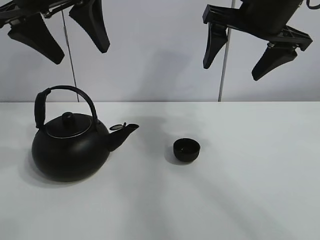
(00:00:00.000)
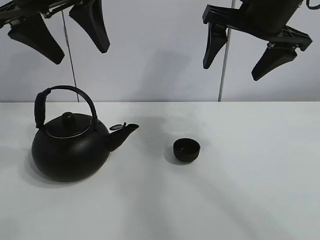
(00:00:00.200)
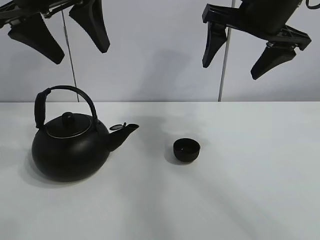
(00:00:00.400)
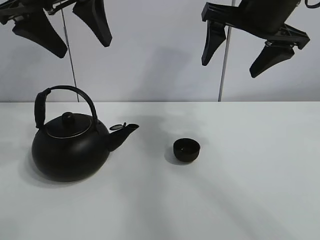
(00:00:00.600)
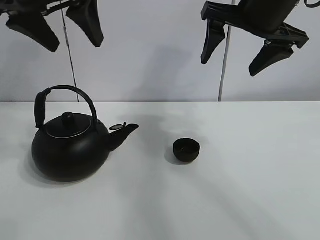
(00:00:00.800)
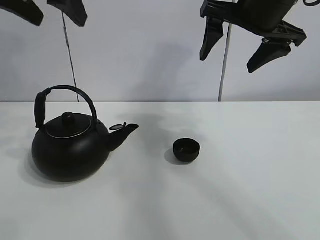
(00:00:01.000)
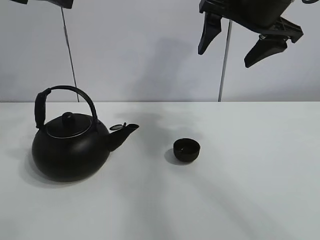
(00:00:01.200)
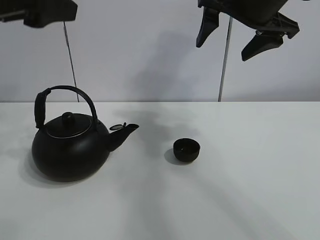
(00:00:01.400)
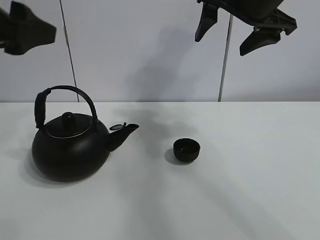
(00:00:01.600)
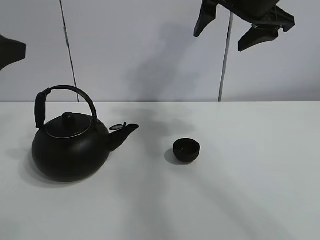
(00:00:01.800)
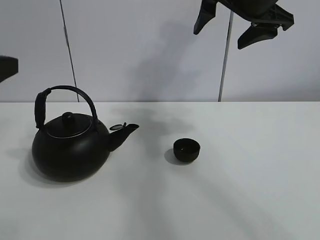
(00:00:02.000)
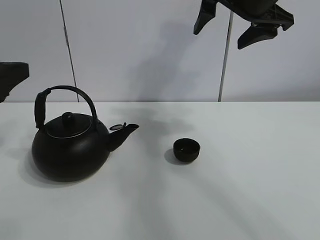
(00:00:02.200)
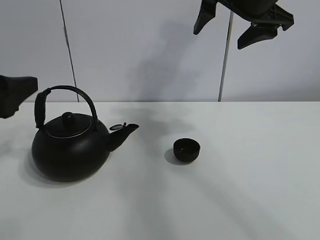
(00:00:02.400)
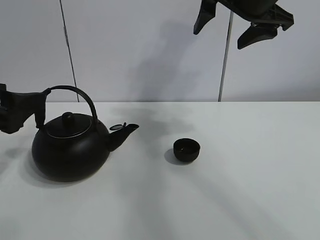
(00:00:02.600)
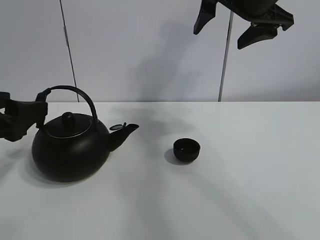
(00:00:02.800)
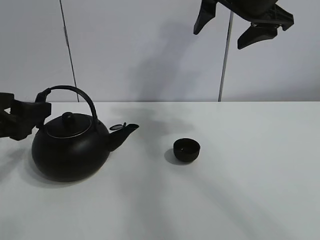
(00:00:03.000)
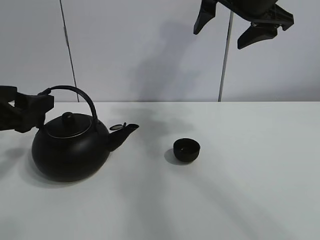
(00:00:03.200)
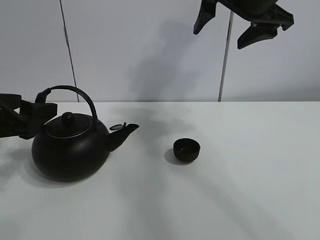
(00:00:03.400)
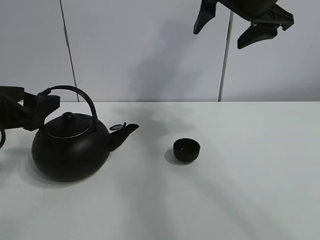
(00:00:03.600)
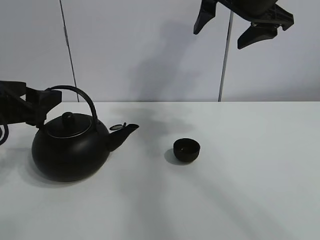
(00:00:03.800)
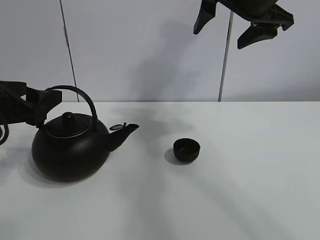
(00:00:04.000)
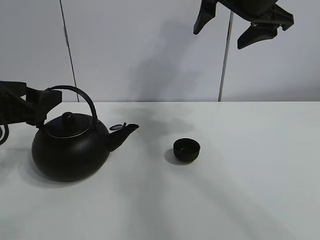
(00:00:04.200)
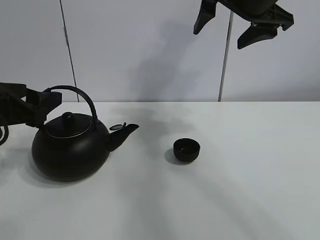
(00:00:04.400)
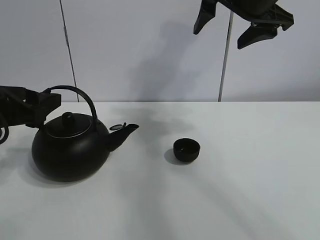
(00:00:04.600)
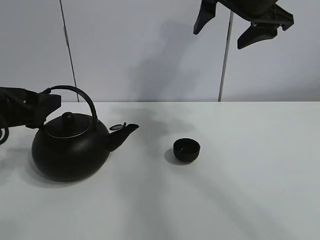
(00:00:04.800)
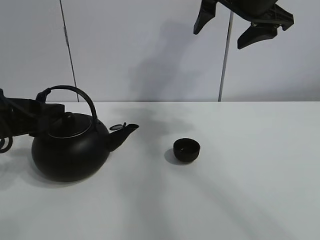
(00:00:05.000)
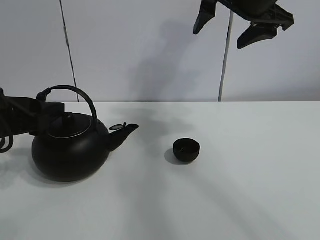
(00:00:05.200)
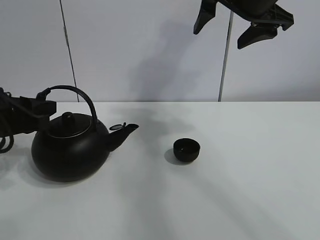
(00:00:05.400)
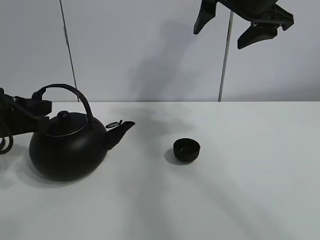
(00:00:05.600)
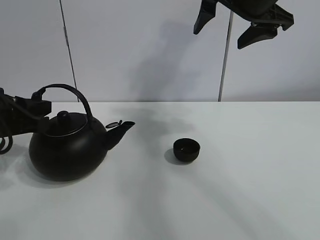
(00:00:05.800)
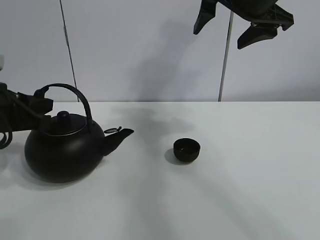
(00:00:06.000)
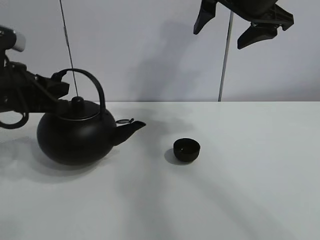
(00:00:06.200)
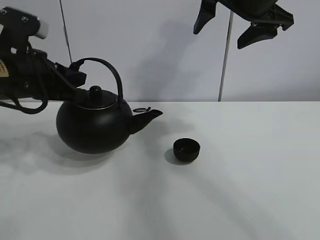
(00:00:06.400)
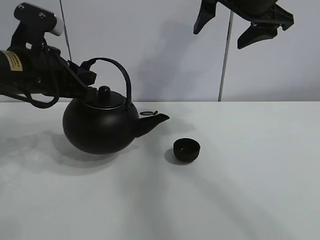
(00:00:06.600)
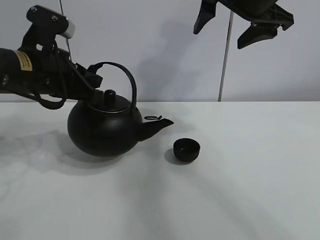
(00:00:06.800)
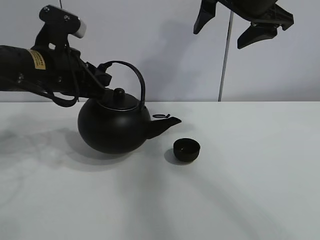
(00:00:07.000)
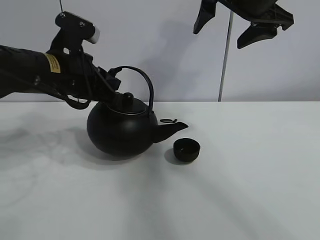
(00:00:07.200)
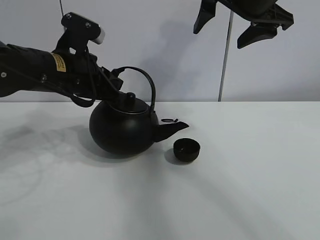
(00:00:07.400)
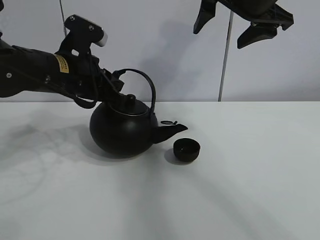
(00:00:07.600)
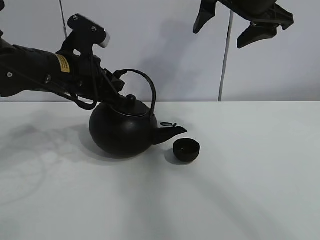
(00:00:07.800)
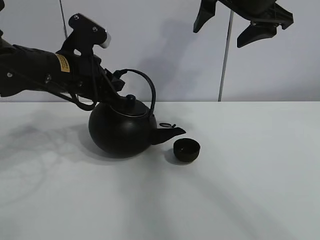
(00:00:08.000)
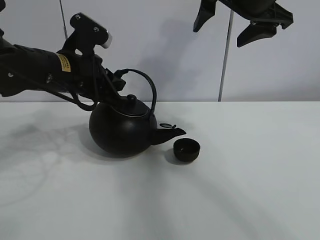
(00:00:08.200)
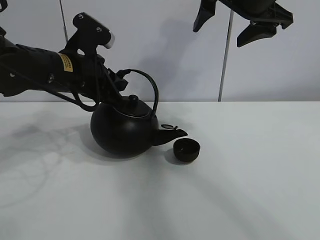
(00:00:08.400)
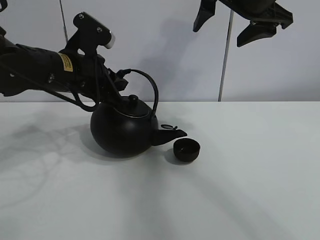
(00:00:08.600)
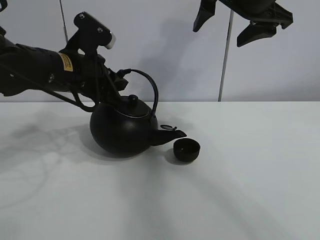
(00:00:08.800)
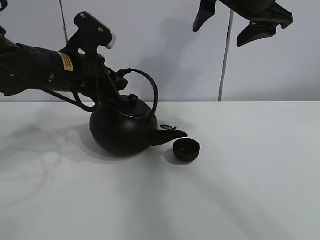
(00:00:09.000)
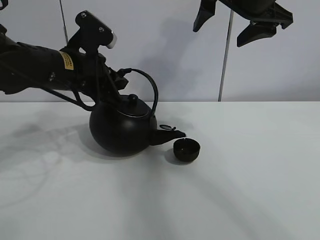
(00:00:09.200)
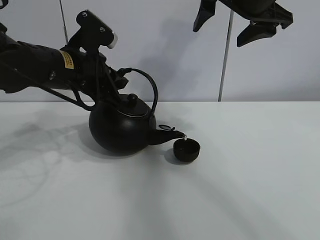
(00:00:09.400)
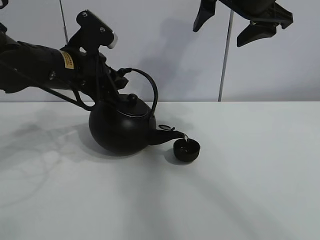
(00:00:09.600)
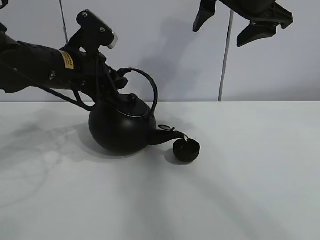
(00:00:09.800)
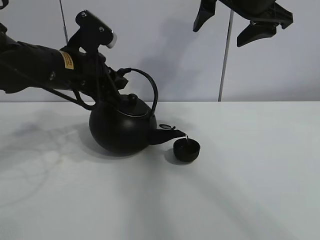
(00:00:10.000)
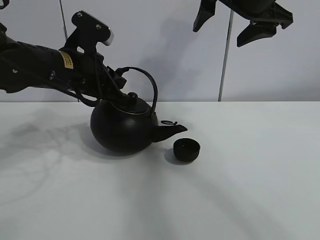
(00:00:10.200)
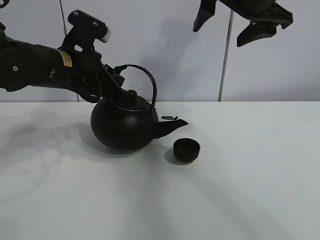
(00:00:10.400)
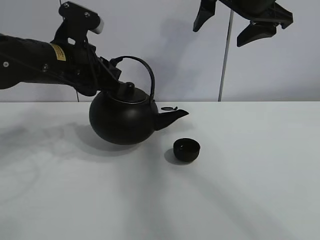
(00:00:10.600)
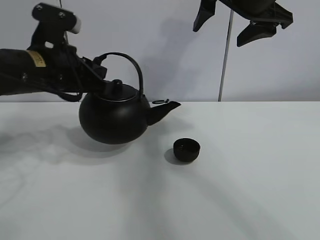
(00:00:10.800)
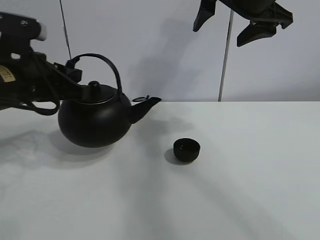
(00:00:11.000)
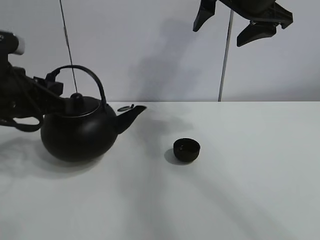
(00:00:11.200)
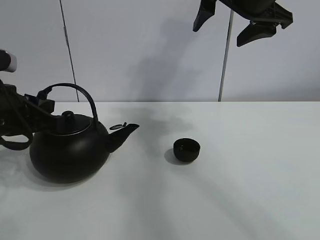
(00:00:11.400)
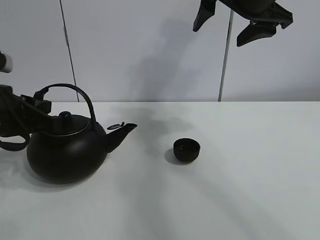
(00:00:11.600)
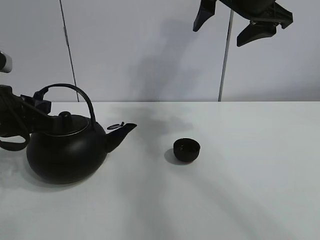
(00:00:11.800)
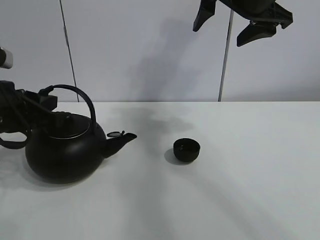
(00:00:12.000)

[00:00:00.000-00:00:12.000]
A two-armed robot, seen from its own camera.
Task of the whole recording: pour tea into the teacup.
Step, 00:00:00.000 to 00:00:05.800: Pick up the teapot with the left gripper.
Step, 00:00:06.000 to 00:00:10.200: Pour tea into the teacup with the left gripper.
00:00:00.000 to 00:00:01.600: The left gripper travels to the left and backward by about 10 cm.
00:00:01.600 to 00:00:03.000: The left gripper heads downward, covering some 15 cm.
00:00:03.000 to 00:00:04.400: There are only small adjustments of the grippers.
00:00:04.400 to 00:00:06.000: The left gripper closes.
00:00:06.000 to 00:00:07.600: The left gripper moves to the right and forward, some 15 cm.
00:00:07.600 to 00:00:10.400: The grippers move only a little.
00:00:10.400 to 00:00:12.000: The left gripper moves backward and to the left, approximately 15 cm.

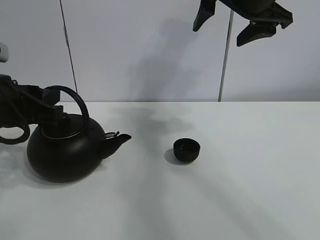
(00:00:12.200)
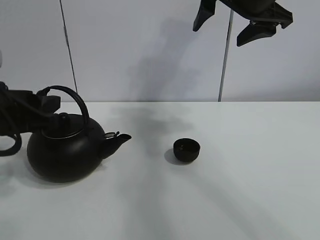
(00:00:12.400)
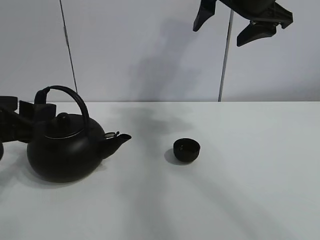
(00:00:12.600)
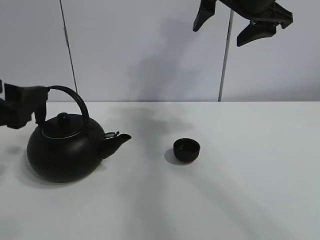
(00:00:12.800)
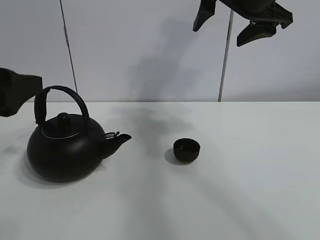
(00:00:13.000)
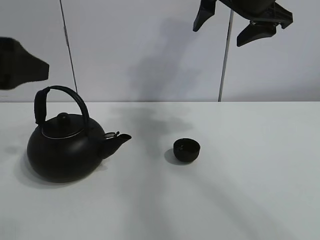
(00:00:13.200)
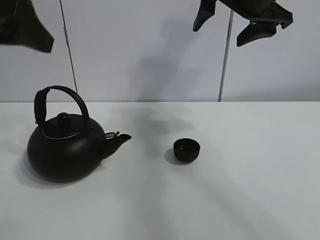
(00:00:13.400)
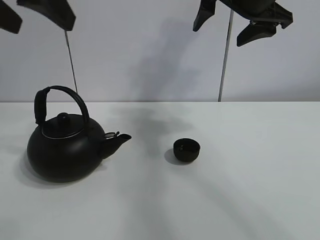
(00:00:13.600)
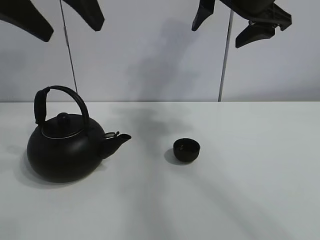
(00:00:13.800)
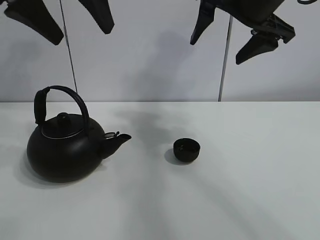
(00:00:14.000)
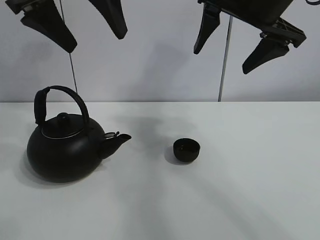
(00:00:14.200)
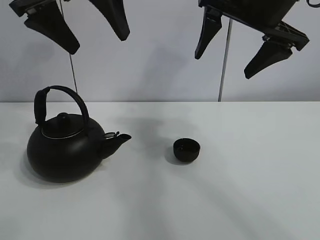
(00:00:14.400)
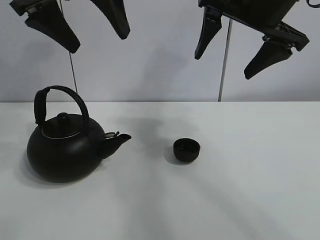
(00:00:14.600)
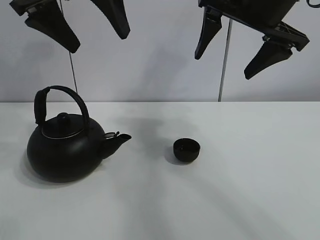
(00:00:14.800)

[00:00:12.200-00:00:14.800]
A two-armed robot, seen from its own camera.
Task of the whole recording: pour tea into the teacup.
00:00:12.200 to 00:00:13.400: The left gripper moves upward, roughly 15 cm, and opens up.
00:00:13.400 to 00:00:14.800: The left gripper goes approximately 15 cm forward and to the right.
